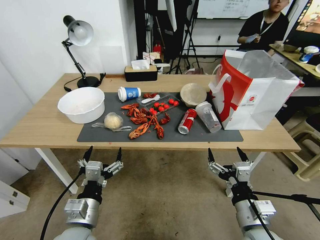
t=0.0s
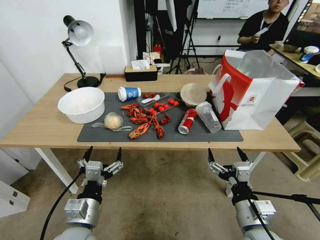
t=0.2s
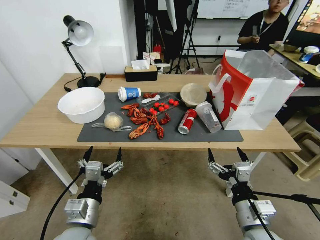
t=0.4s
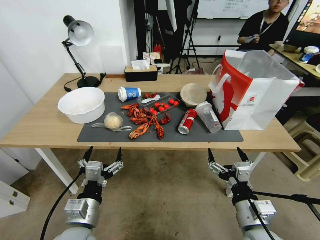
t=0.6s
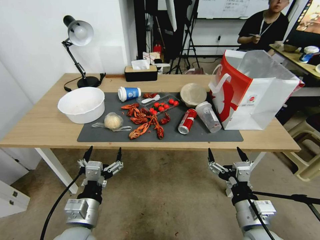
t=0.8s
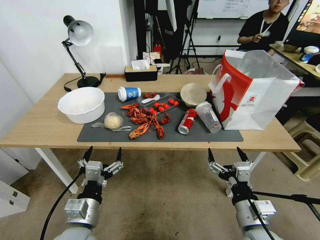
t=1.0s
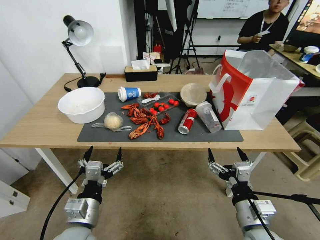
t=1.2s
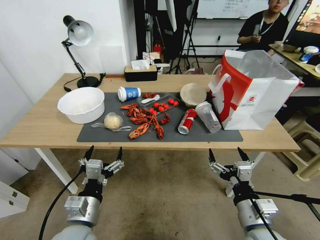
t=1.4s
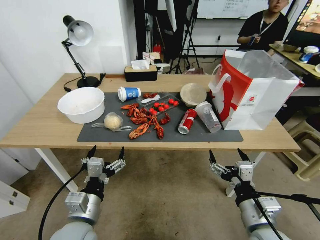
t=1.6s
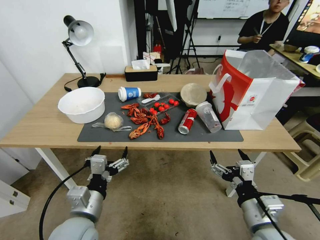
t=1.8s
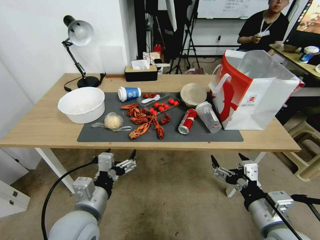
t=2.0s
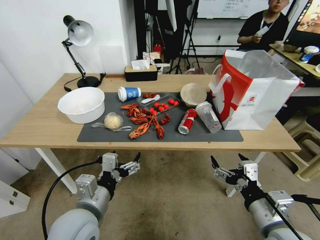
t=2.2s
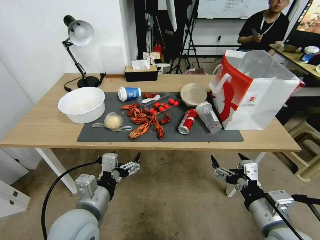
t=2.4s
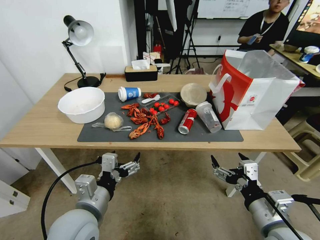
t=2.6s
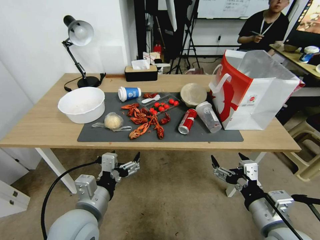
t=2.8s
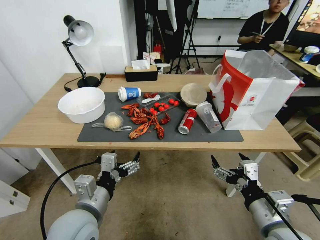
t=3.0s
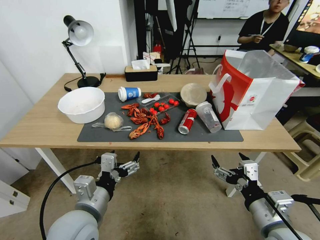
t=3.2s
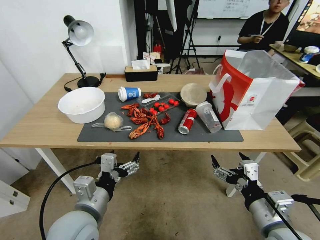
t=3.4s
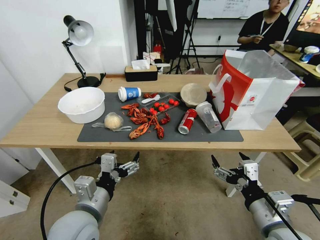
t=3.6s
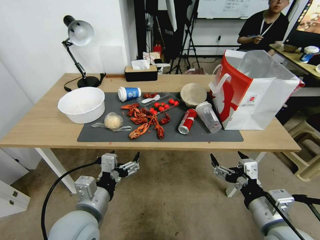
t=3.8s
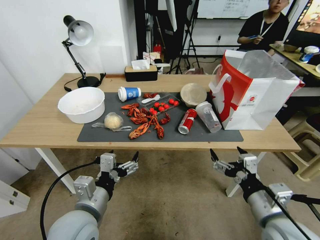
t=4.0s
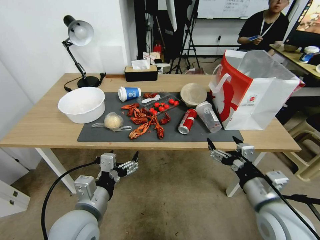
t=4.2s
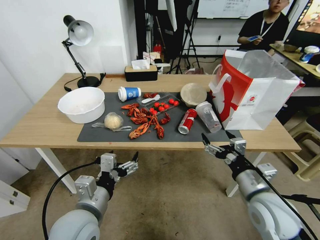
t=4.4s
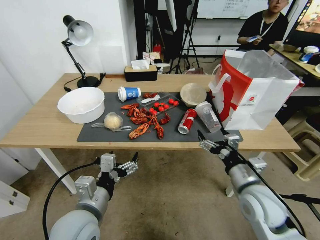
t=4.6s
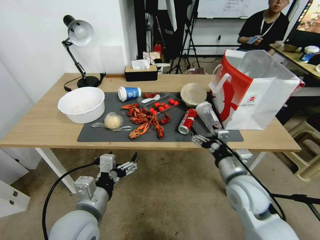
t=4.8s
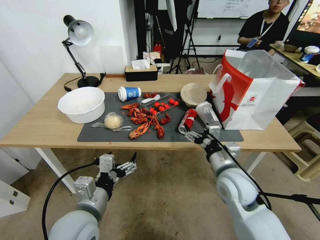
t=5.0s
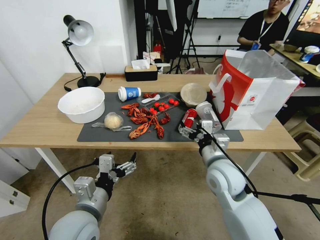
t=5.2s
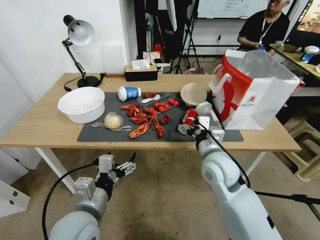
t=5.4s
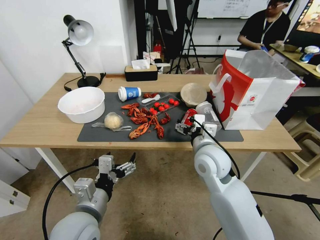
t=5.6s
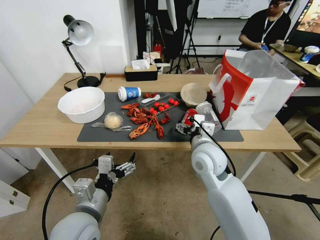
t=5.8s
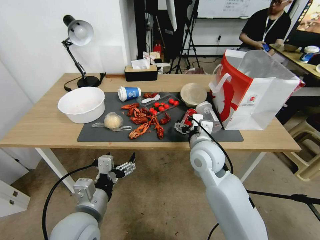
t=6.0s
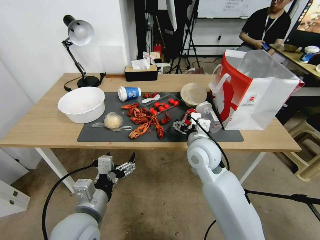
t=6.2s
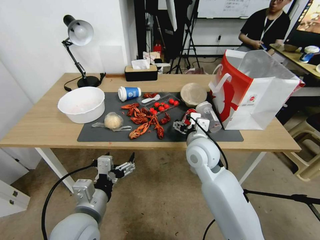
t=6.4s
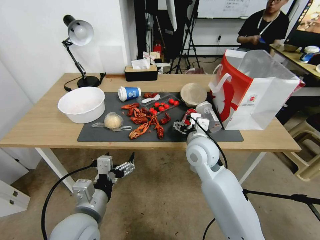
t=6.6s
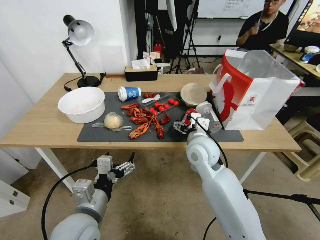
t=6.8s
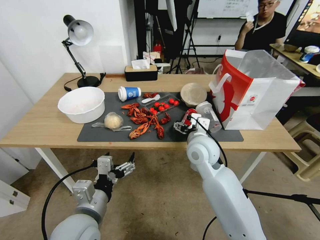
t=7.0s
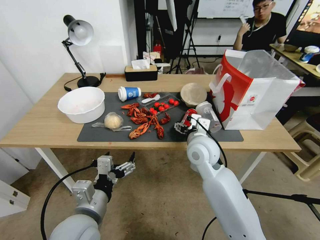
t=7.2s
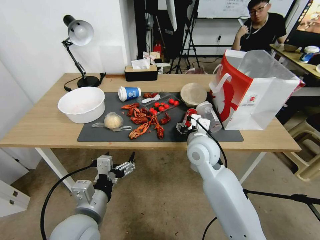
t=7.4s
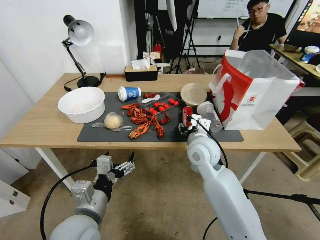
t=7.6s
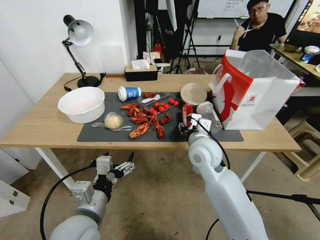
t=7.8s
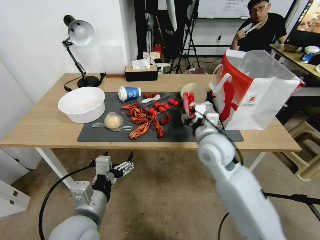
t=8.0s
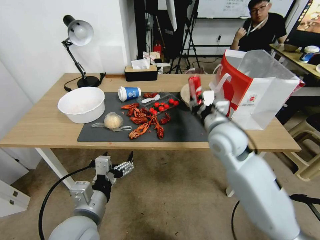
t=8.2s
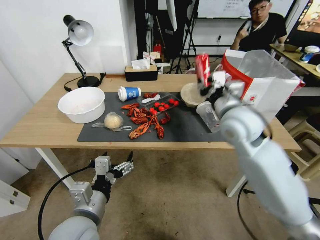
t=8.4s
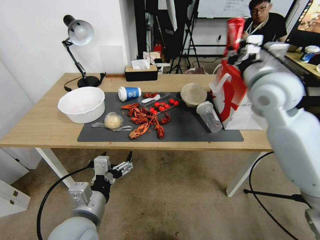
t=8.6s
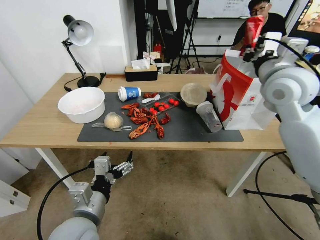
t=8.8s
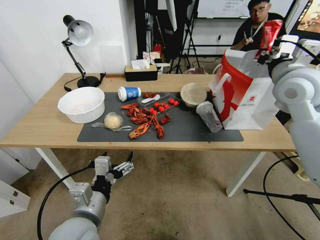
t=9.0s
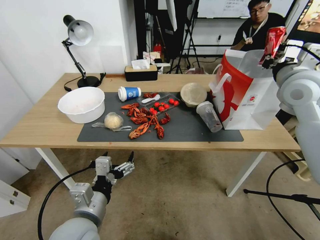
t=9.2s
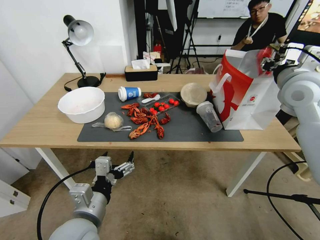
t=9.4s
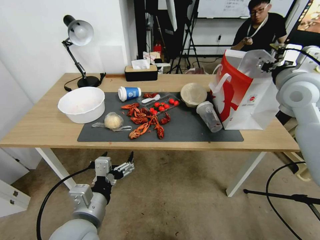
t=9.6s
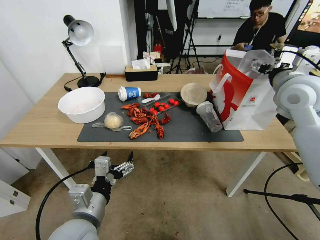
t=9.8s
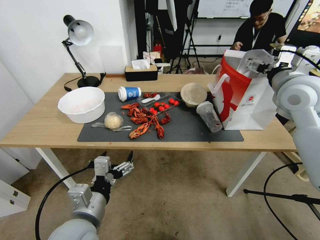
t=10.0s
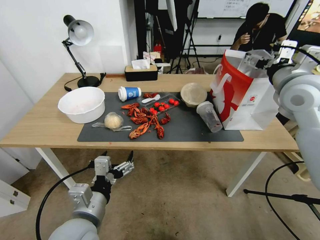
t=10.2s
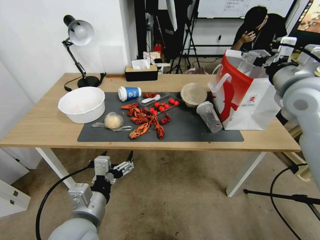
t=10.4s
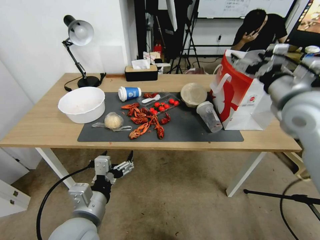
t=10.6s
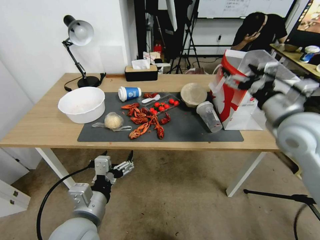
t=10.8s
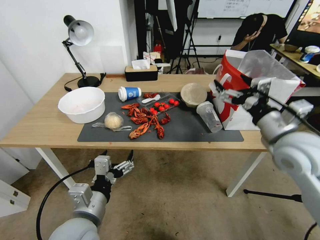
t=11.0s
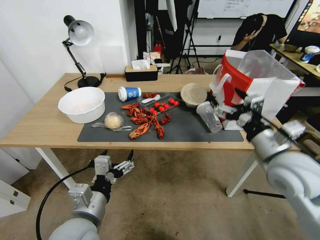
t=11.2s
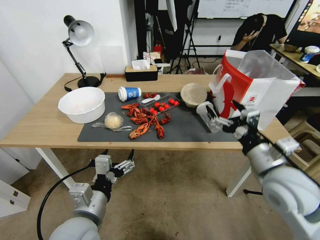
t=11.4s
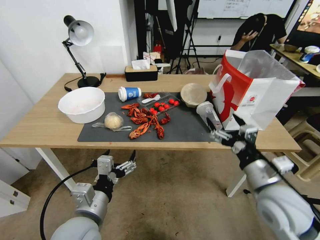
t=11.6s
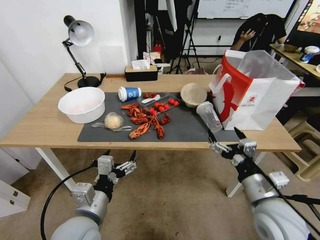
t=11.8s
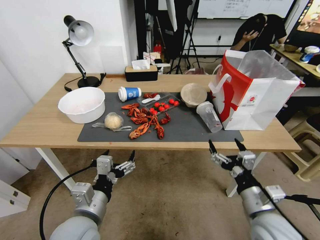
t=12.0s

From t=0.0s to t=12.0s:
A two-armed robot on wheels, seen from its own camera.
From t=3.0s to t=4.4s: The grippers stay close to where they were, moving slightly.
From t=4.4s to t=6.0s: The right gripper is displaced forward and to the left by some 25 cm.
From t=6.0s to t=7.6s: The right gripper closes.
From t=7.6s to t=9.0s: The right gripper is displaced upward and to the right by about 30 cm, and closes up.
From t=9.0s to t=10.4s: The right gripper opens its fingers.
From t=10.4s to t=12.0s: The right gripper shifts approximately 35 cm downward and backward.

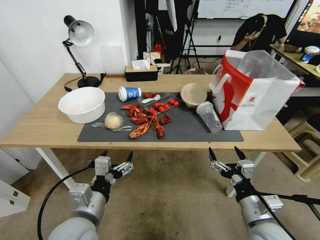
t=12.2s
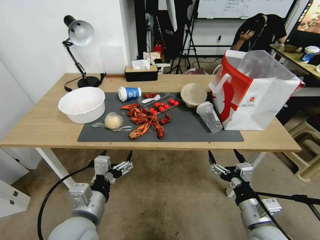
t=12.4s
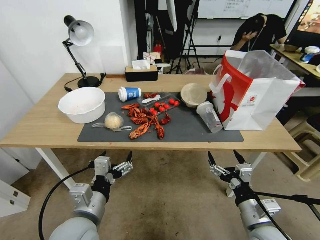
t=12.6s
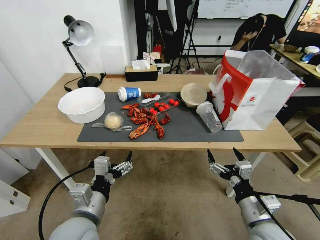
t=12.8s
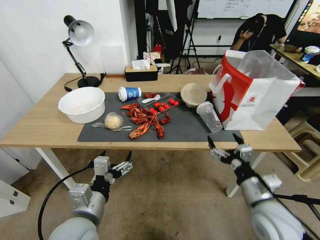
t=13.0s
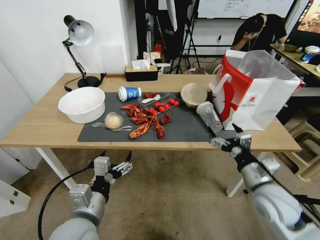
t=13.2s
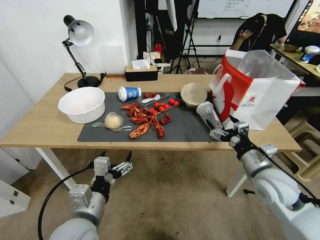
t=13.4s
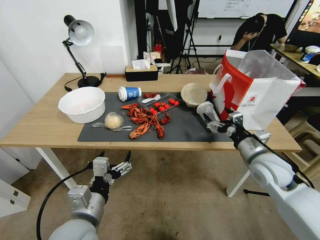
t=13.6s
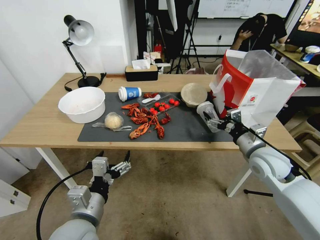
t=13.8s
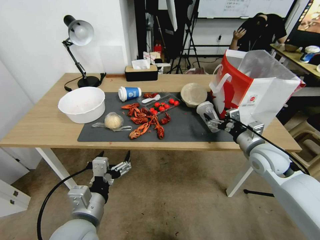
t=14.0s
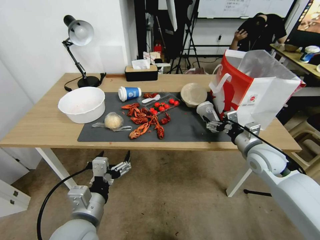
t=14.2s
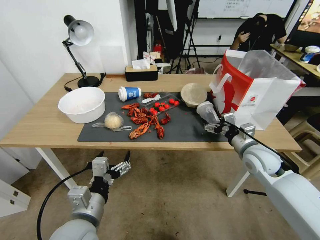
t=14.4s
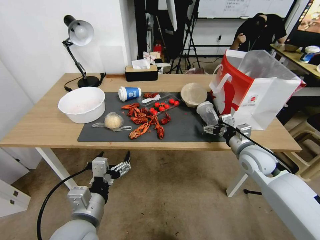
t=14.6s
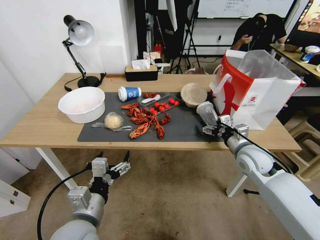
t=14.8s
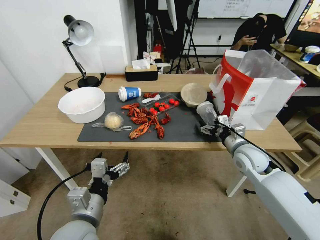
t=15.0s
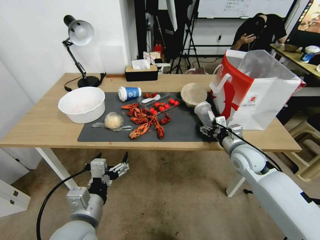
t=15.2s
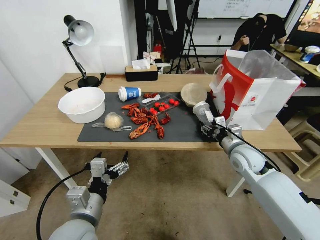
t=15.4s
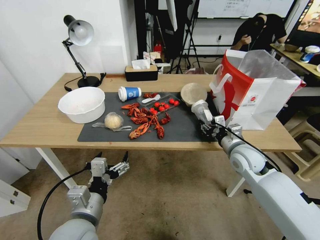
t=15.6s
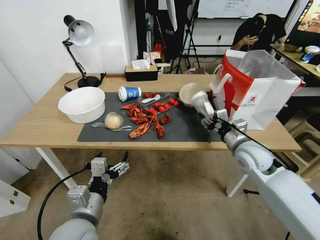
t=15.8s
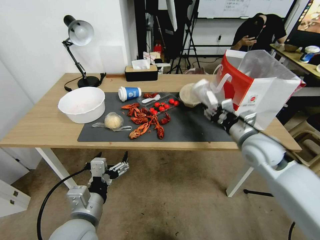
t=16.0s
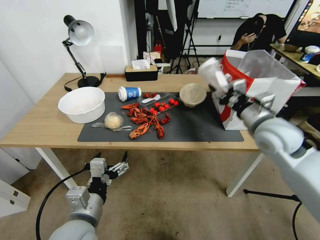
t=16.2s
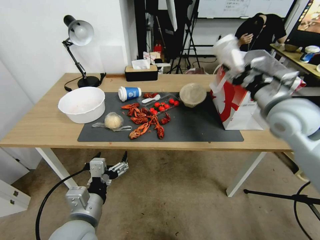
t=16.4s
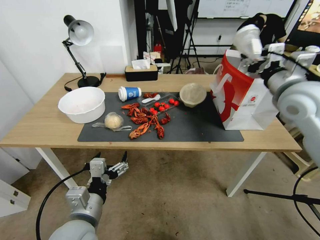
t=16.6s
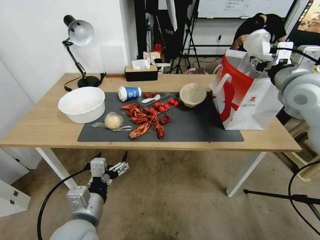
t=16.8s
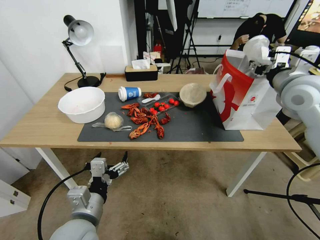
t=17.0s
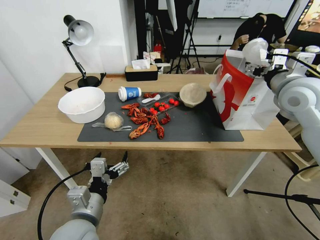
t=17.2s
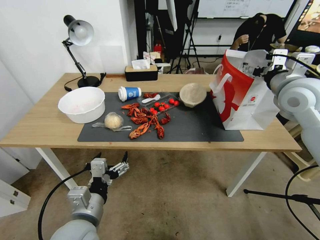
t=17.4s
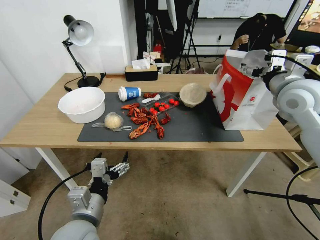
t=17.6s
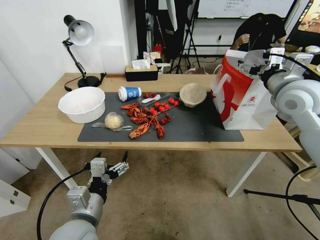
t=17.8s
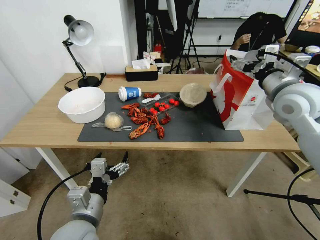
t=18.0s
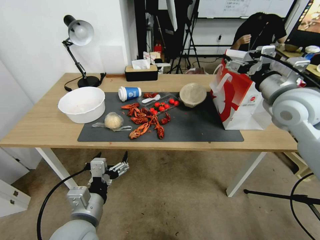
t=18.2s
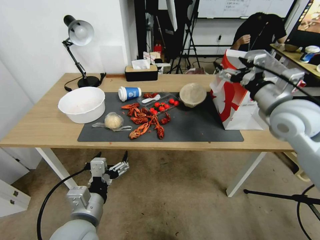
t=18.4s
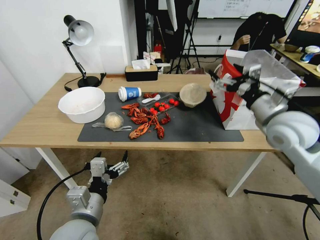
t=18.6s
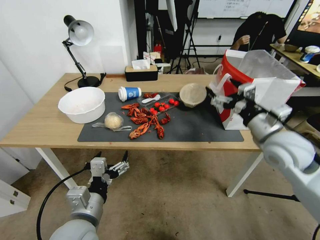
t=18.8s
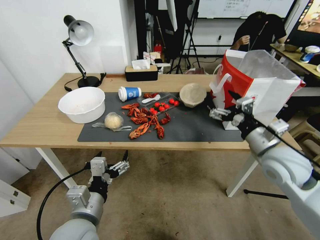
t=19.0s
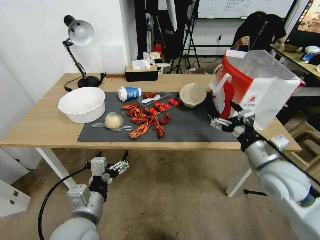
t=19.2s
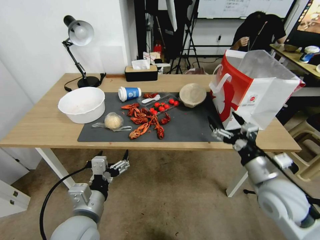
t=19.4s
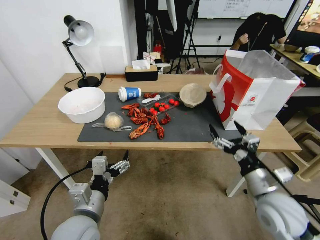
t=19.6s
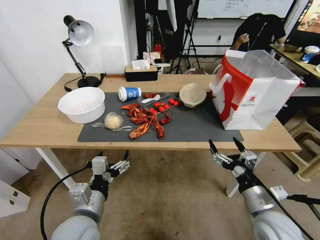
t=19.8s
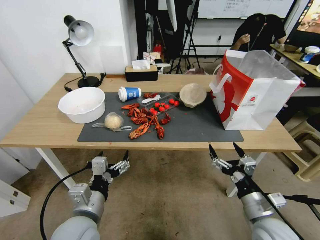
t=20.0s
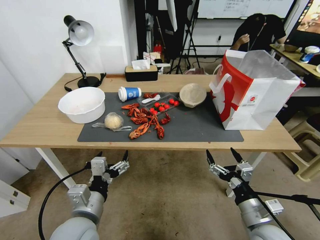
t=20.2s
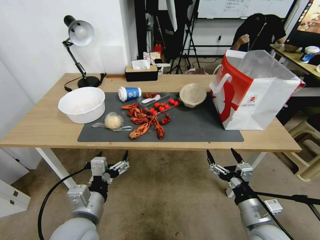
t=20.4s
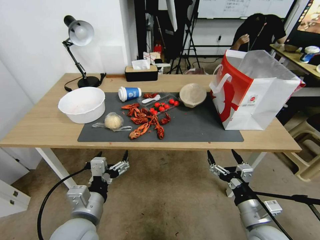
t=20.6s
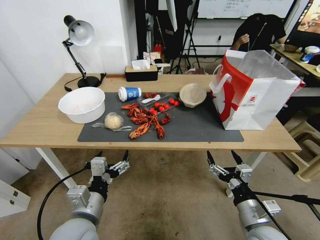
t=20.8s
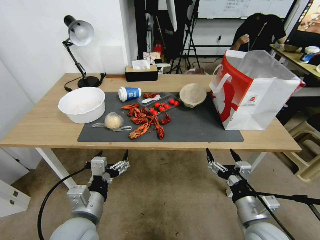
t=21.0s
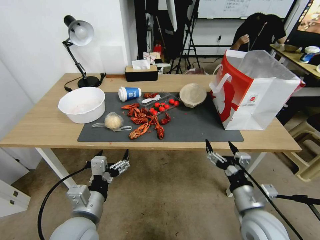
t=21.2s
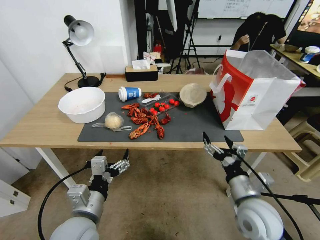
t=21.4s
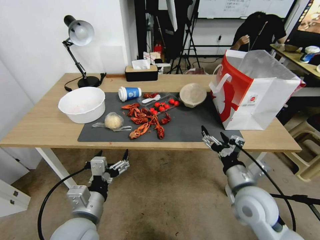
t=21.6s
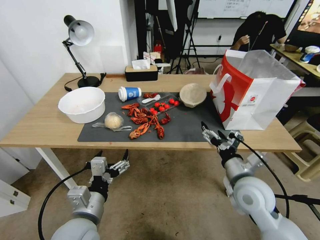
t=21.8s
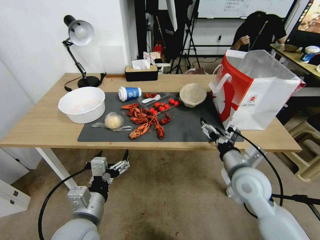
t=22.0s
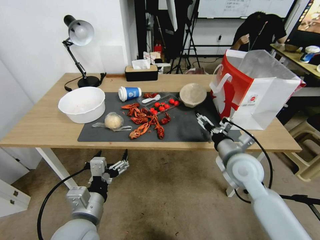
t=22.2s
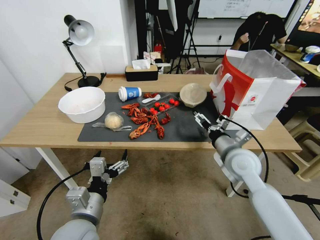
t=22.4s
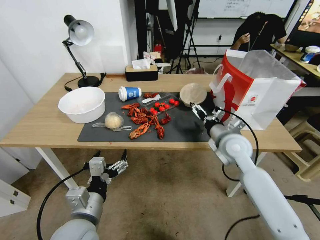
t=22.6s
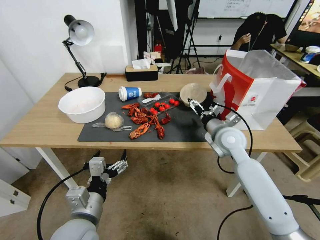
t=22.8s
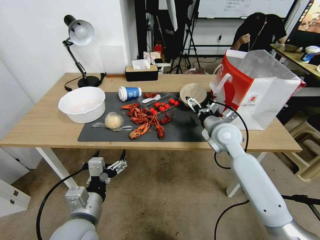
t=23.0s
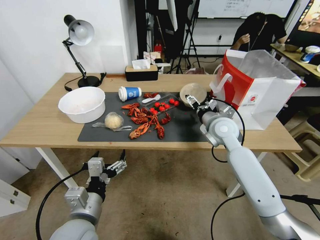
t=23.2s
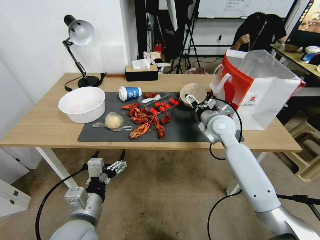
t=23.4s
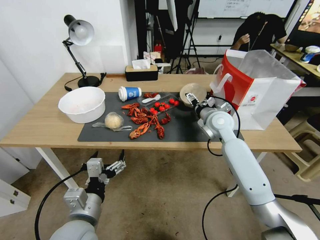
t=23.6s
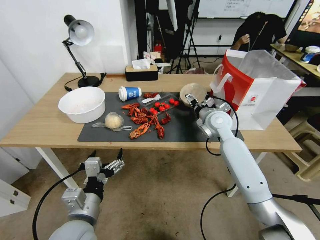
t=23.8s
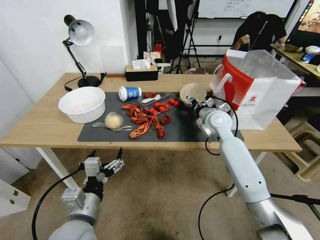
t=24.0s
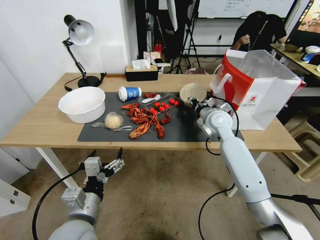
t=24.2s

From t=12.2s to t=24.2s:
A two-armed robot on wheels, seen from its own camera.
From t=12.2s to t=13.8s: The right gripper is displaced forward by approximately 20 cm.
From t=13.8s to t=15.2s: The right gripper ends up about 5 cm from where it was.
From t=15.2s to t=16.6s: The right gripper is displaced upward by roughly 25 cm.
From t=16.6s to t=18.2s: The right gripper opens its fingers.
From t=18.2s to t=19.8s: The right gripper goes about 30 cm downward and backward.
From t=19.8s to t=21.2s: The grippers stay close to where they were, moving slightly.
From t=21.2s to t=22.6s: The right gripper shifts about 20 cm forward and upward.
From t=22.6s to t=24.2s: The right gripper travels forward by some 15 cm, and closes.
